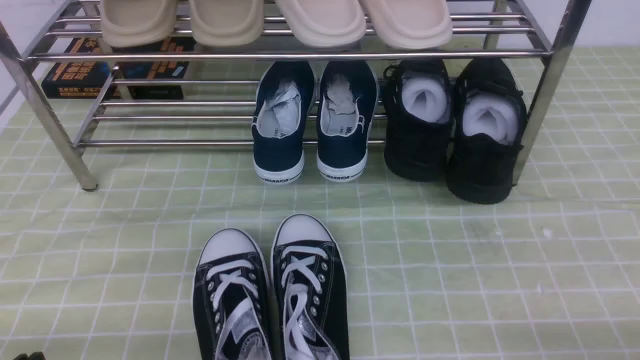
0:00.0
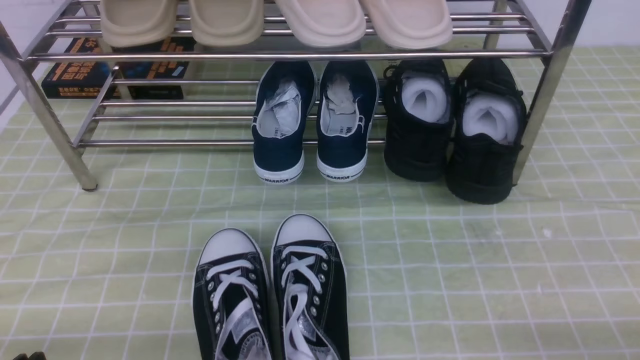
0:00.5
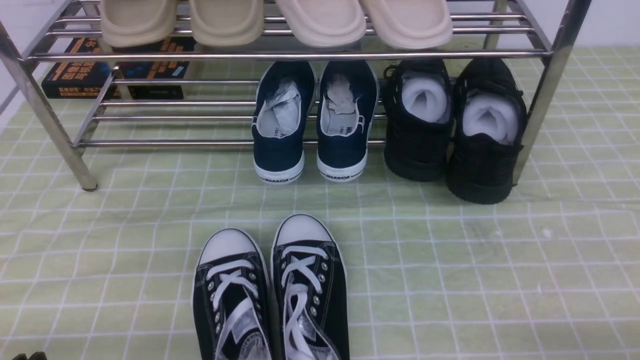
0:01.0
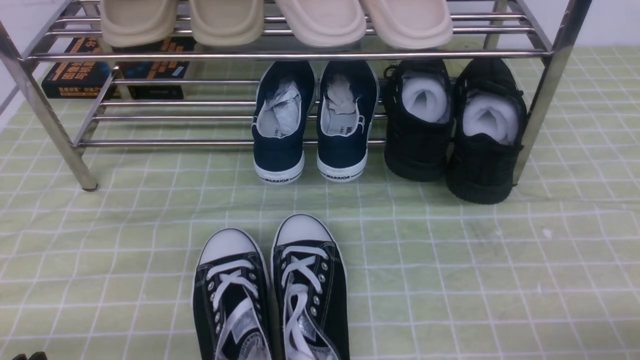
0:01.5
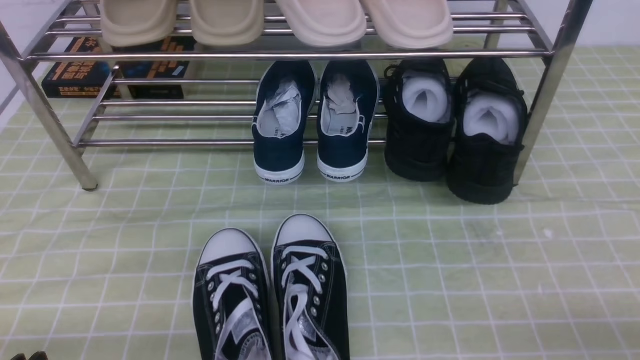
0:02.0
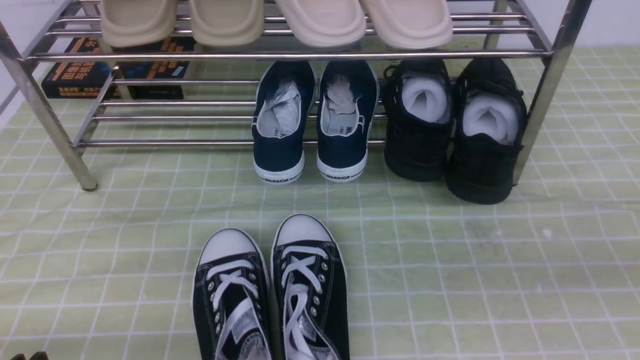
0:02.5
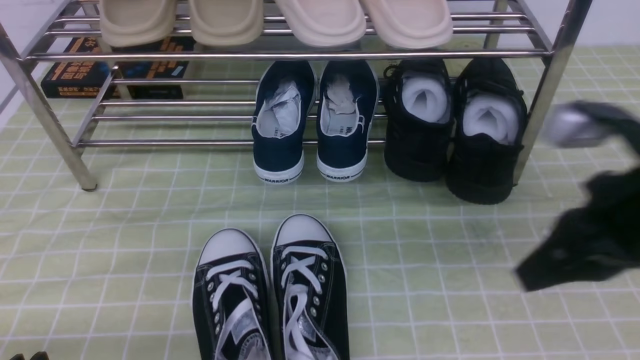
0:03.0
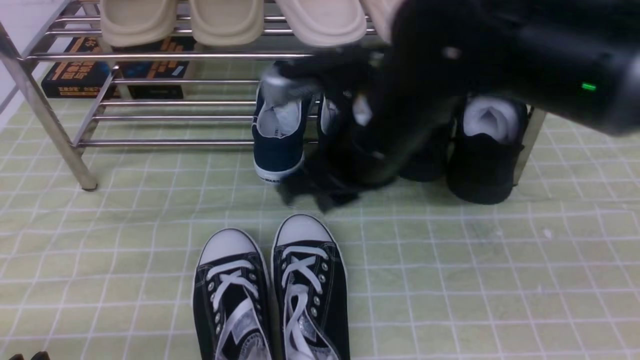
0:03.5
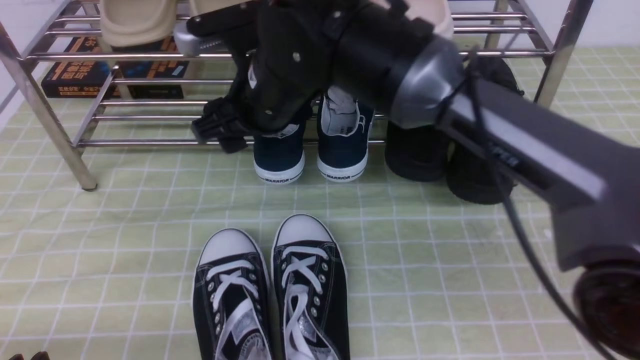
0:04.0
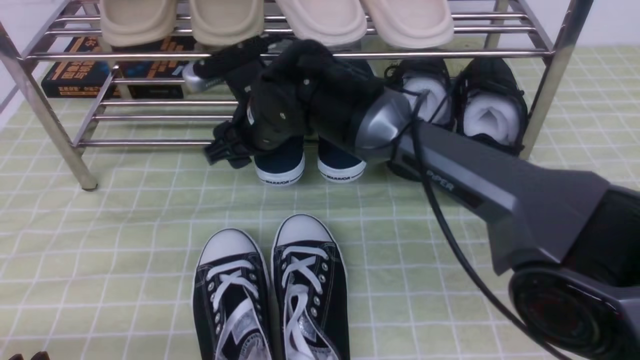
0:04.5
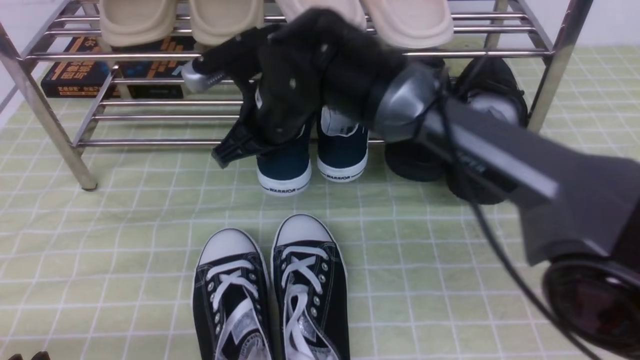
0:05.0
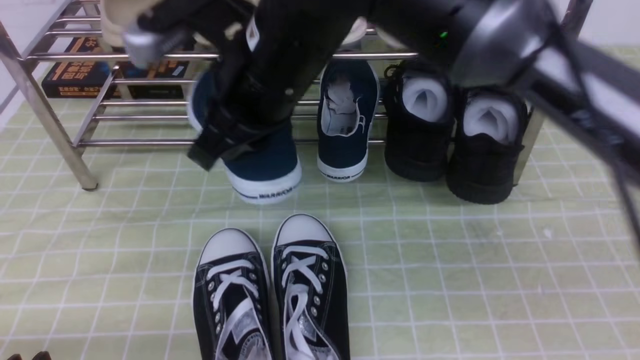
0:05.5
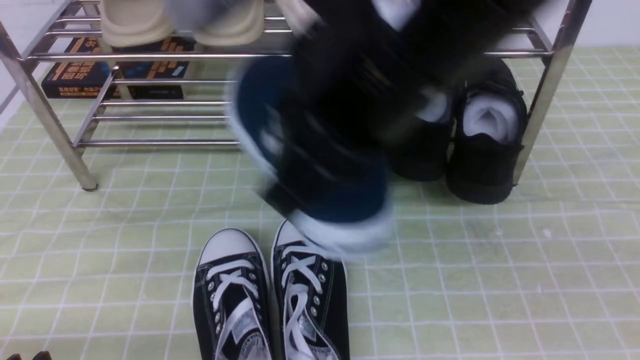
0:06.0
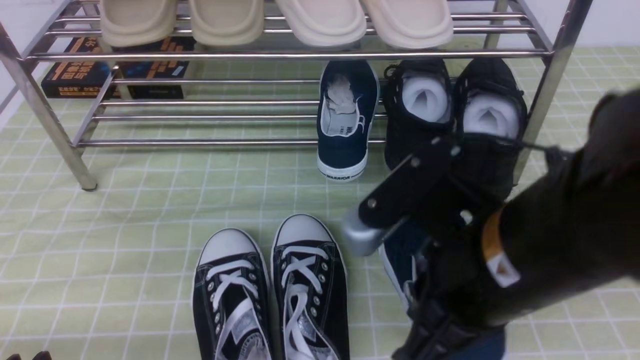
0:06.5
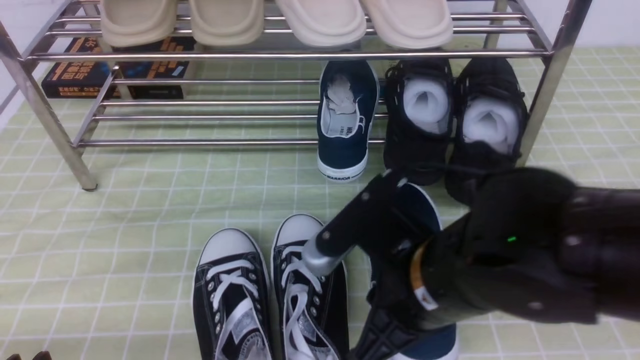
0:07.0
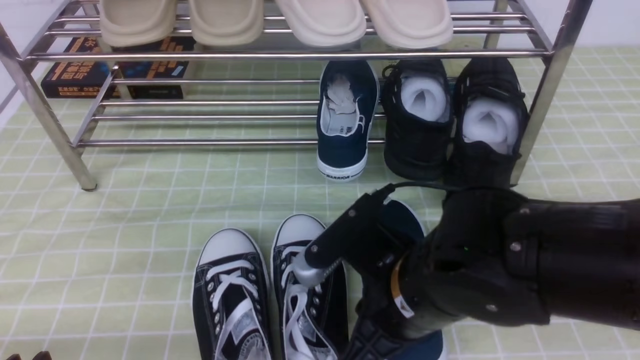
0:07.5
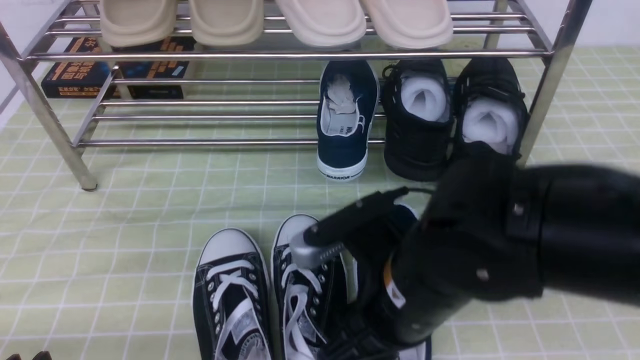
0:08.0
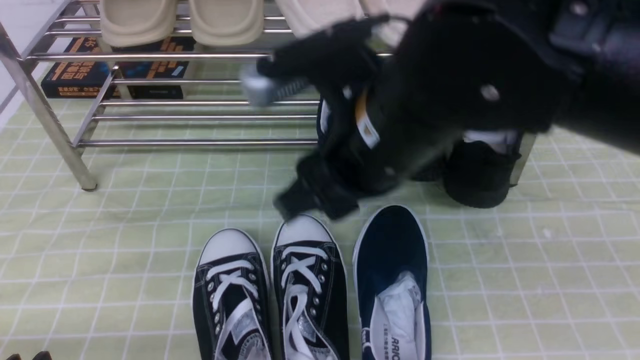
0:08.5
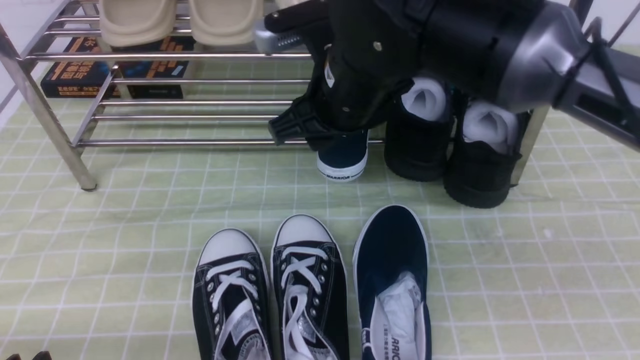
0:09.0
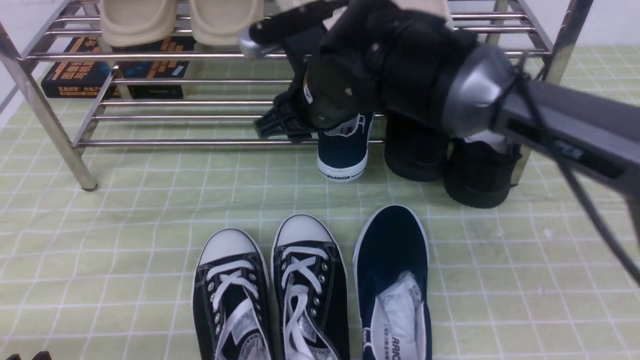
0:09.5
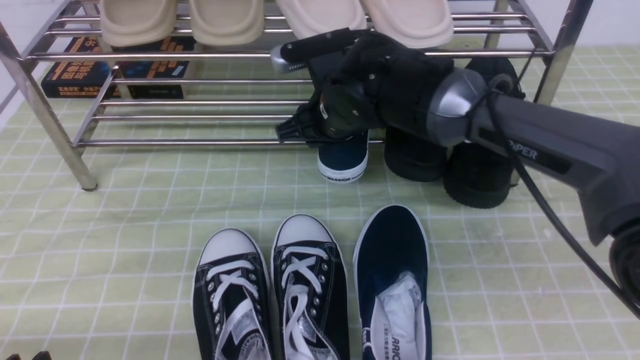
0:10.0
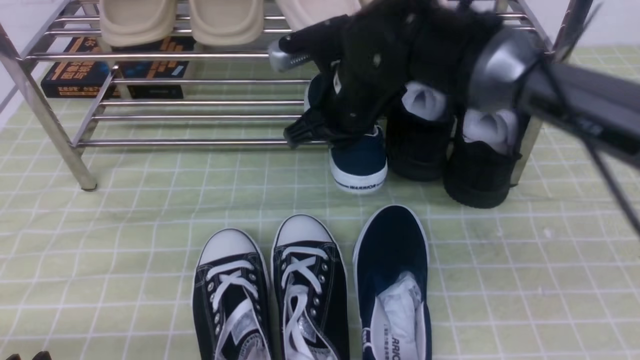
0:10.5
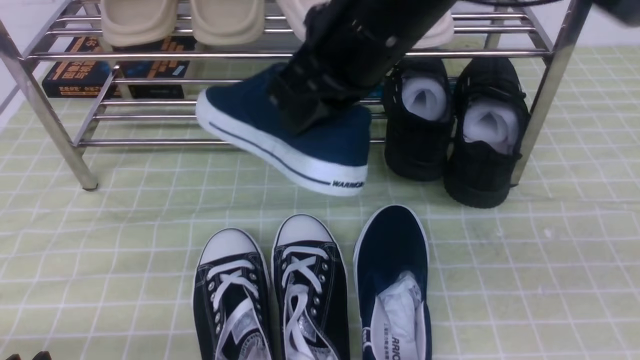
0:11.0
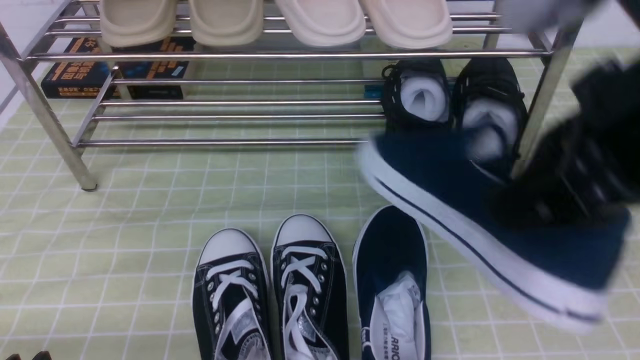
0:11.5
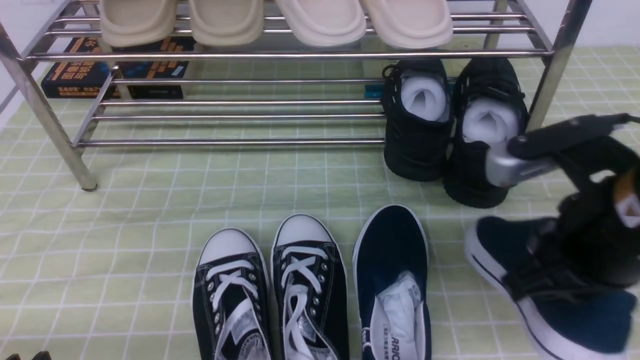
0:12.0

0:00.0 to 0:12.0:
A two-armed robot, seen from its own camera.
Step, 0:00.0 to 0:04.5: use the right arm to clamp a shoe in the middle of the shoe rack.
Step, 0:05.0 to 0:08.0: use the right arm to take out the clamped shoe from the shoe rack and put it down.
Step, 0:08.5 to 0:10.0: use the right arm to clamp a shoe in the middle of the shoe rack.
0:02.0 to 0:04.0: The right gripper goes approximately 40 cm to the left and forward, and opens its fingers.
0:04.0 to 0:06.0: The right gripper heads backward, upward and to the right, covering approximately 20 cm, and closes.
0:06.0 to 0:08.0: The right gripper is displaced downward by some 20 cm, and opens up.
0:08.0 to 0:10.0: The right gripper moves forward, roughly 20 cm.
0:10.0 to 0:12.0: The right gripper travels backward and to the right by about 30 cm, and closes up.

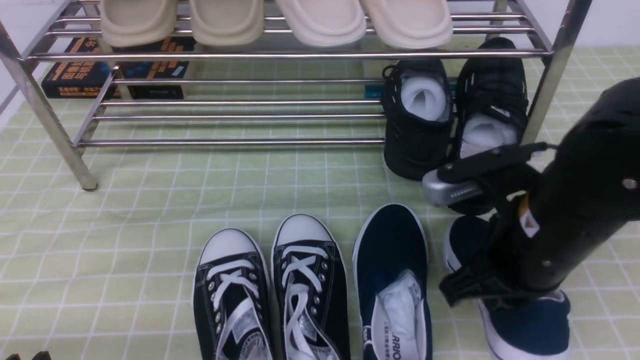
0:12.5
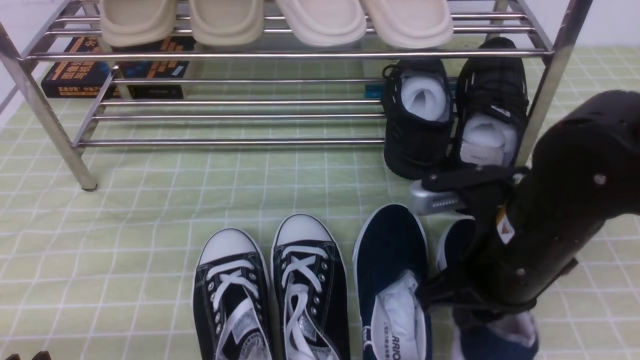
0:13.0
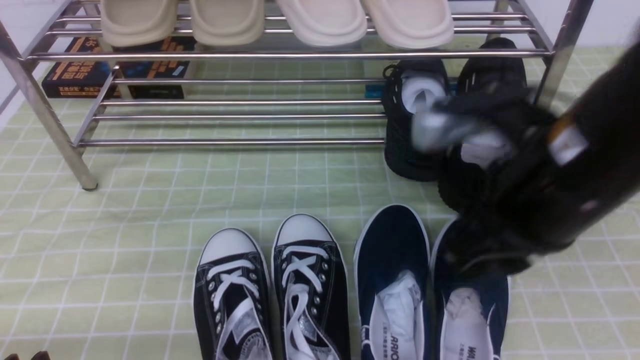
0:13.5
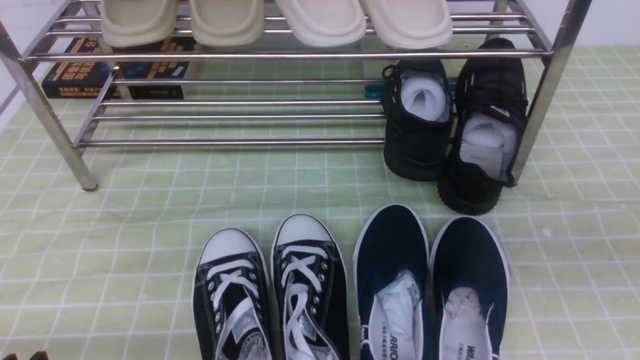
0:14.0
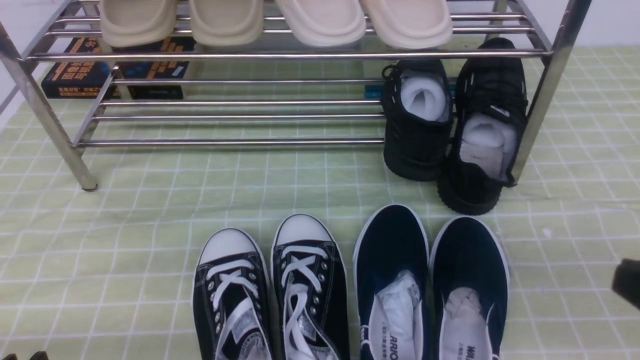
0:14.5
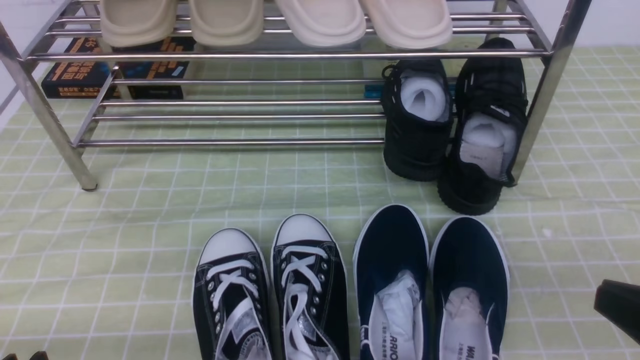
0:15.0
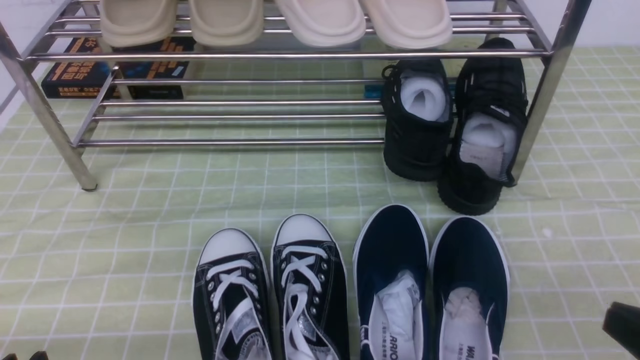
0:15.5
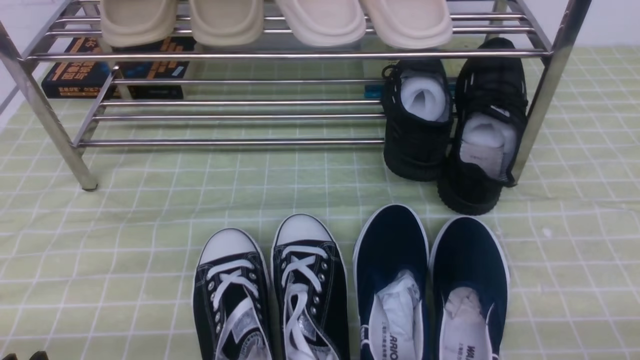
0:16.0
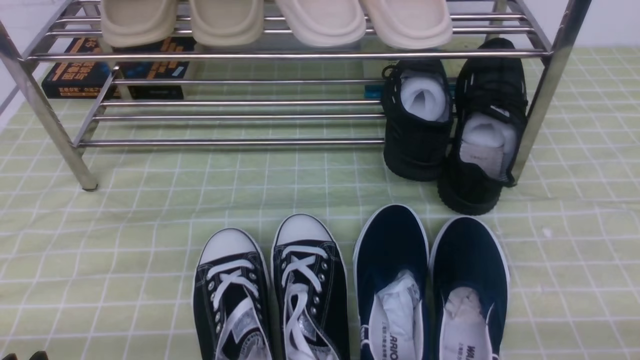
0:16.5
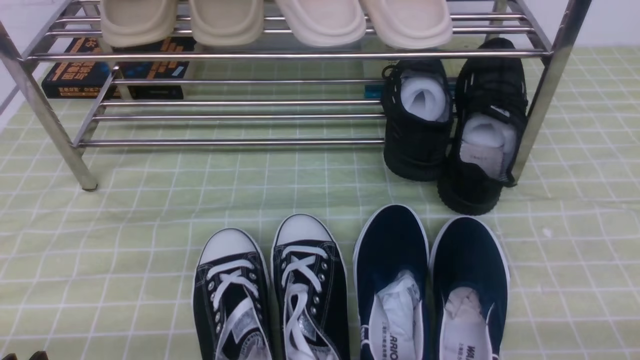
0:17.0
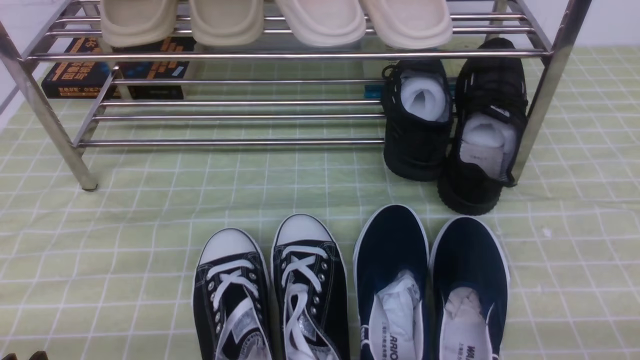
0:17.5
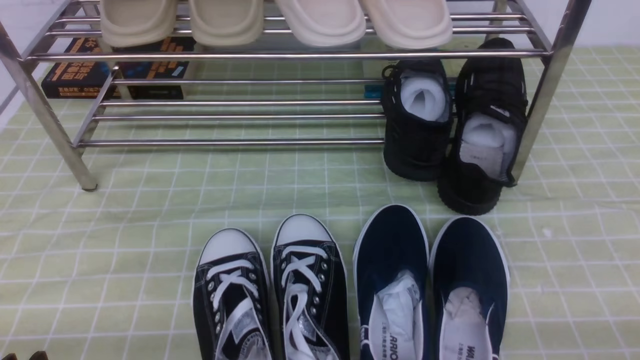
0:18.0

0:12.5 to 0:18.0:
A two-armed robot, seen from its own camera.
0:12.5 to 0:14.5: The right gripper moves backward and to the right, approximately 20 cm, reaches approximately 15 cm upward, then returns, and opens, then closes again.
0:14.5 to 0:16.0: The right gripper heads downward, covering about 15 cm.
